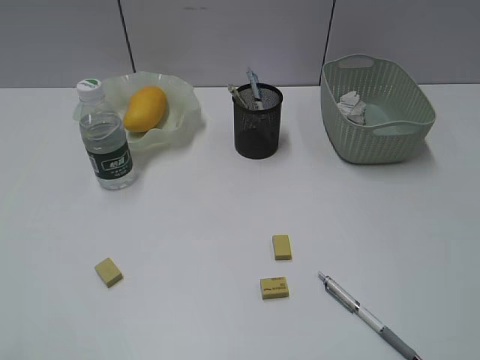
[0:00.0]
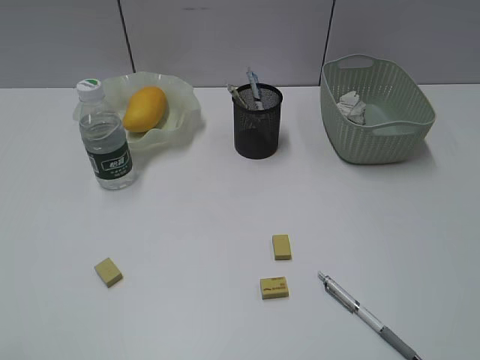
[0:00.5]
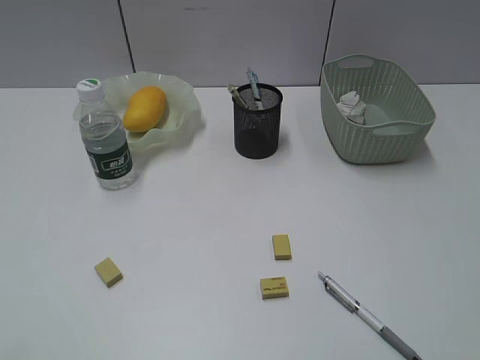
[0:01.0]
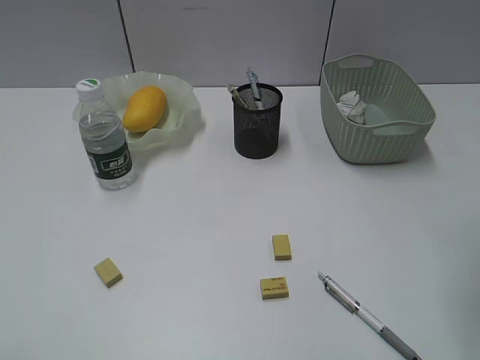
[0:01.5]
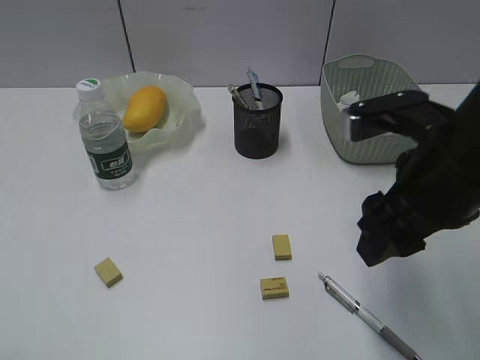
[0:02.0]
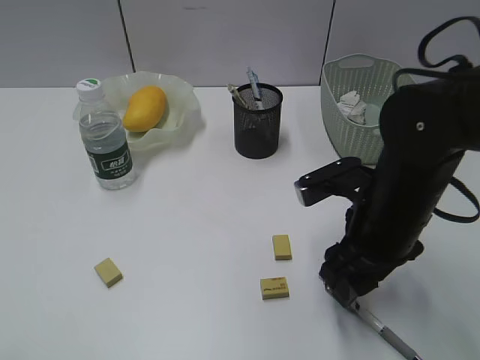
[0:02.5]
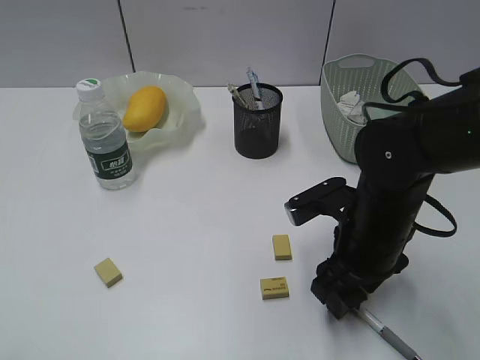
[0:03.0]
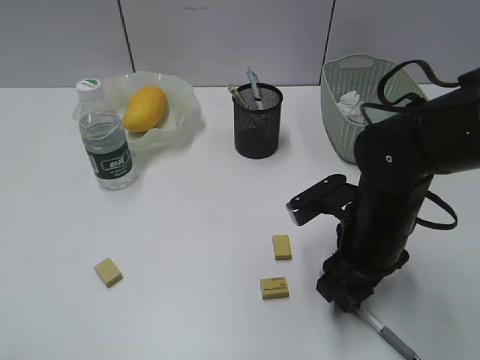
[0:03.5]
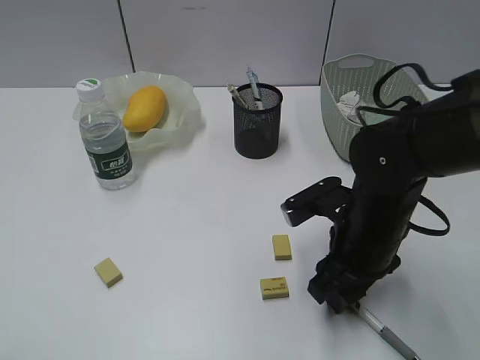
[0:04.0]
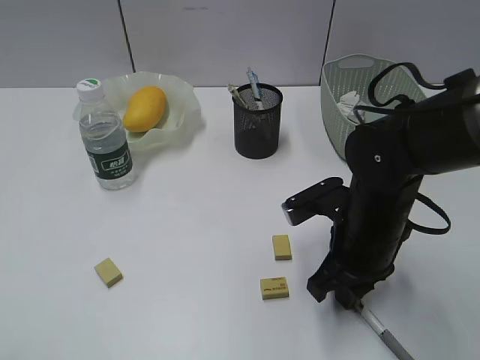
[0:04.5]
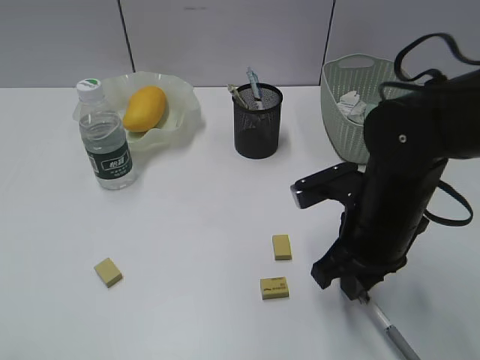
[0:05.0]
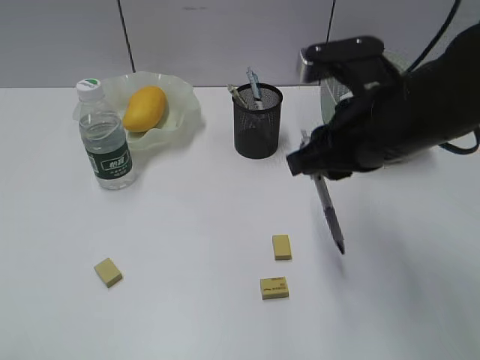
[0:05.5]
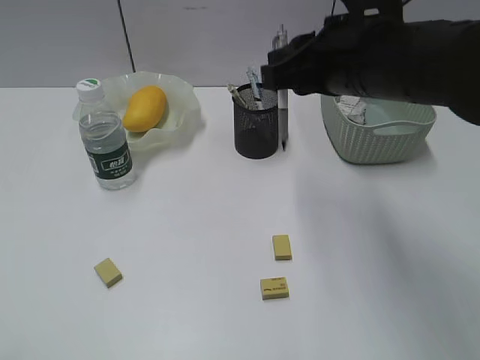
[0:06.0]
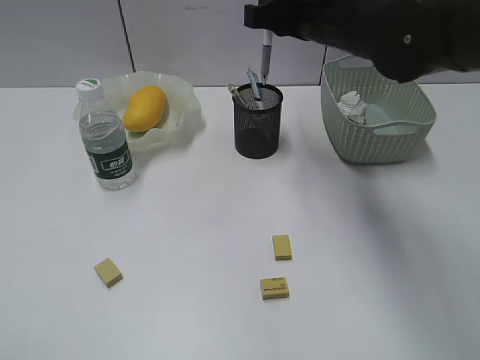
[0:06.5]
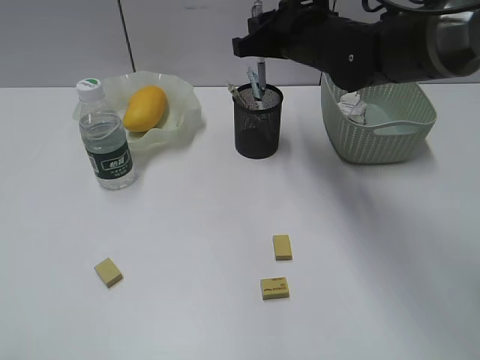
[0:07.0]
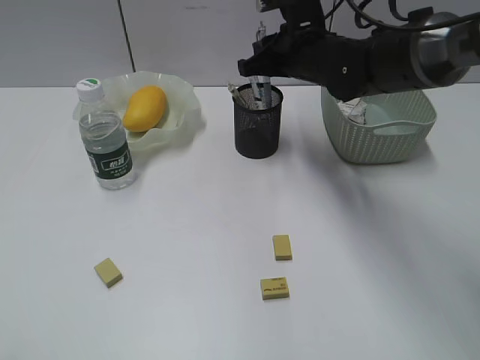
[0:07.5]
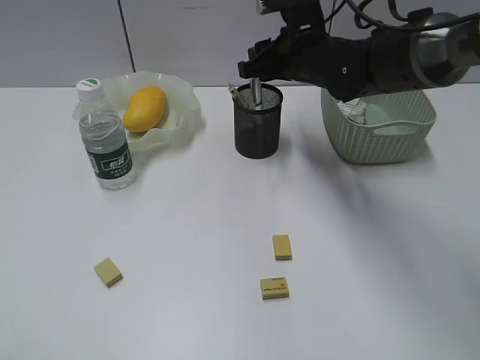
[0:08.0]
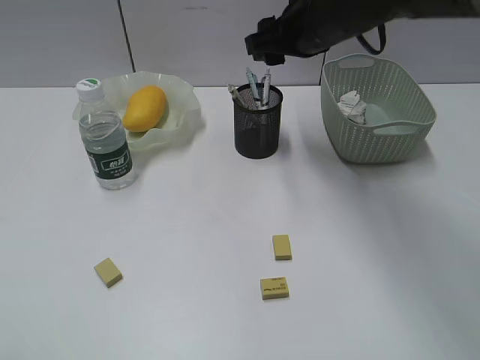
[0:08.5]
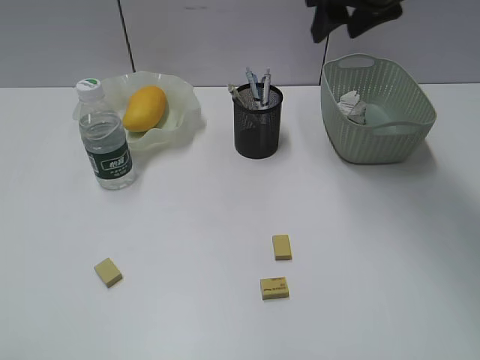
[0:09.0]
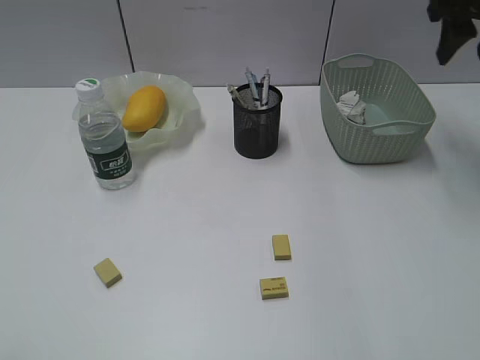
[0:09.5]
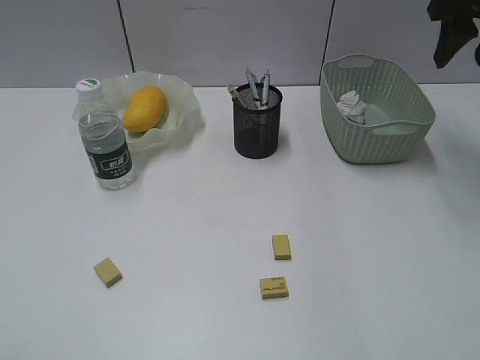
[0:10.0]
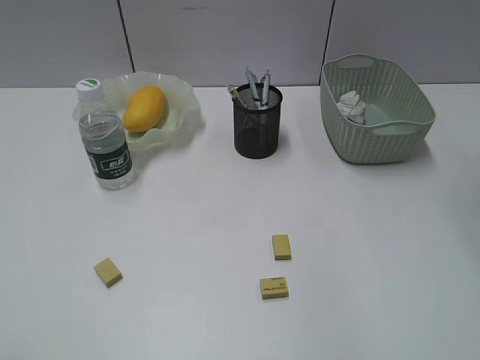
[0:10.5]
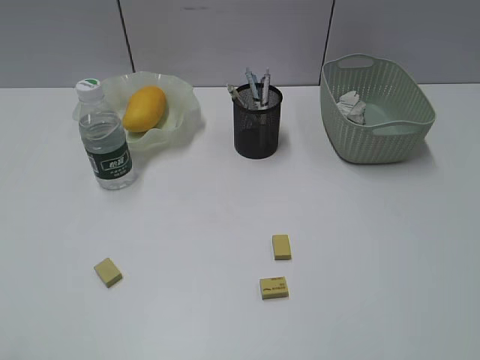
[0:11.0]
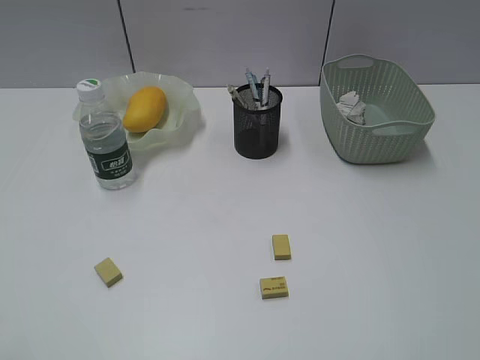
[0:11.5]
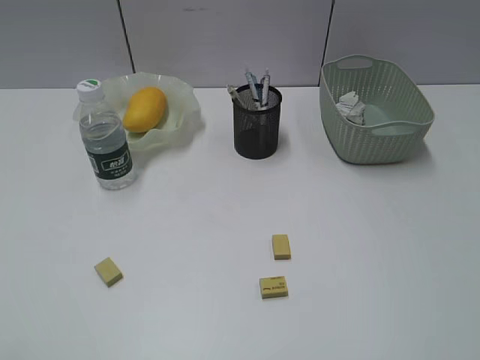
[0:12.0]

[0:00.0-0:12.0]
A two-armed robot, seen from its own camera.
Step, 0:00.0 to 0:04.0: Grasp the gray pen with right gripper.
Step, 0:04.5 to 0:08.0: Place the gray pen in pen holder with right gripper.
0:00.0 to 0:02.0: The right gripper shifts about 25 cm forward and to the left.
0:02.0 to 0:04.0: The right gripper travels downward by some 15 cm.
0:04.0 to 0:06.0: The right gripper goes about 15 cm upward, and closes up.
0:06.0 to 0:08.0: The right gripper shifts some 15 cm forward and downward, and opens its fingers.
0:08.0 to 0:10.0: The right gripper is displaced to the right and upward by about 20 cm.
0:10.0 to 0:12.0: The right gripper goes approximately 40 cm backward.

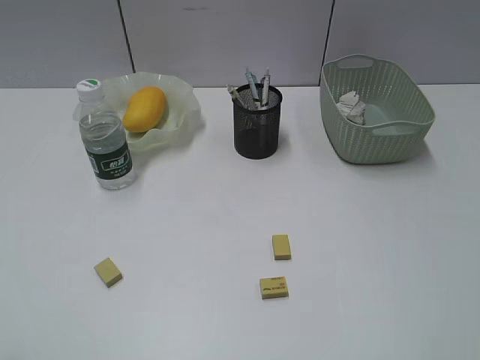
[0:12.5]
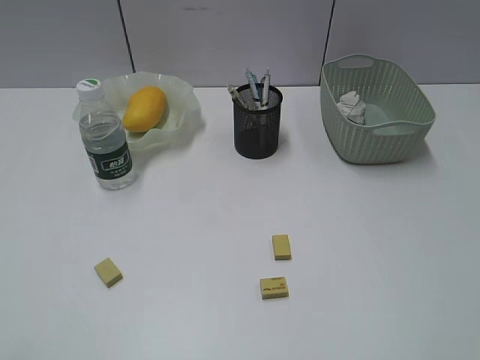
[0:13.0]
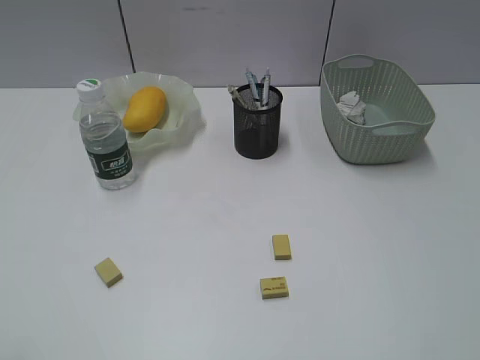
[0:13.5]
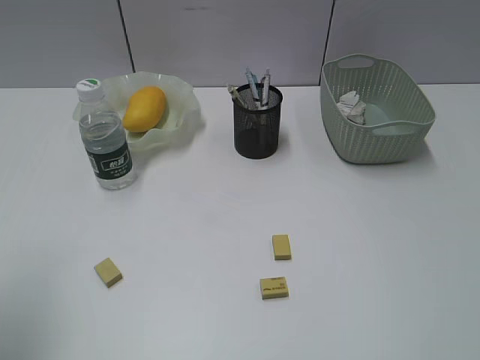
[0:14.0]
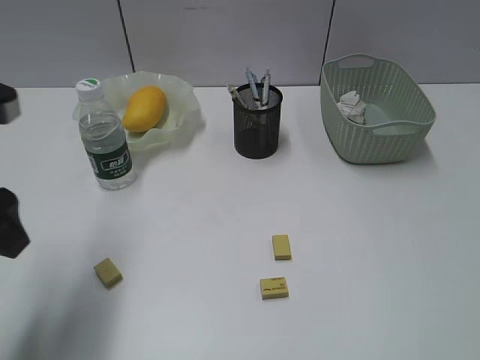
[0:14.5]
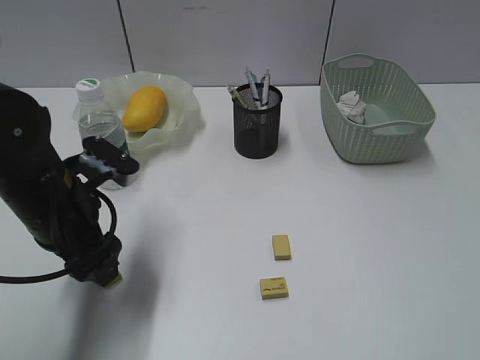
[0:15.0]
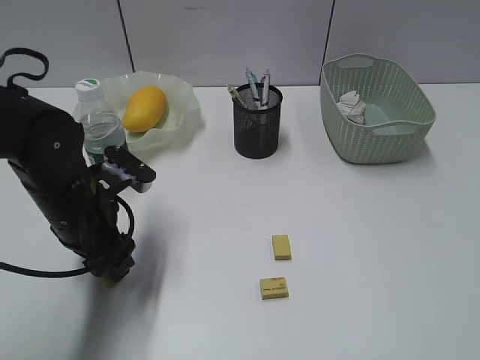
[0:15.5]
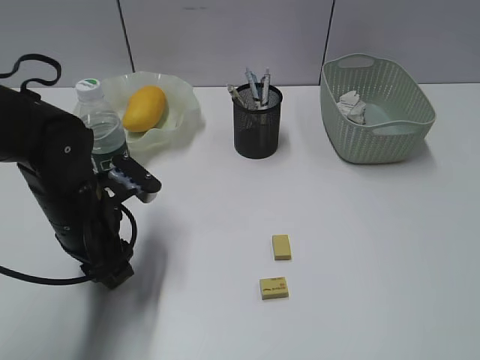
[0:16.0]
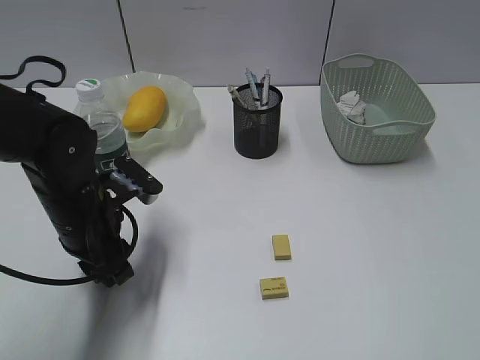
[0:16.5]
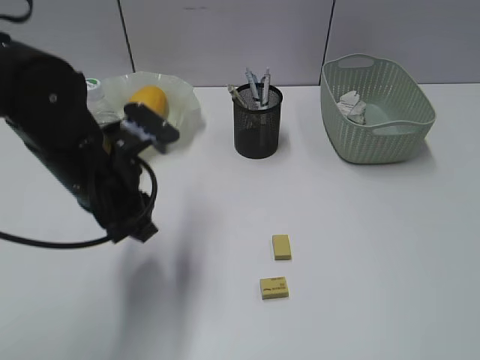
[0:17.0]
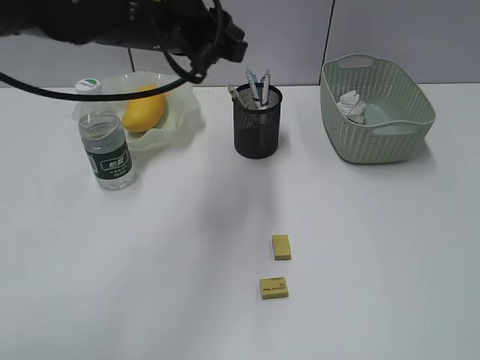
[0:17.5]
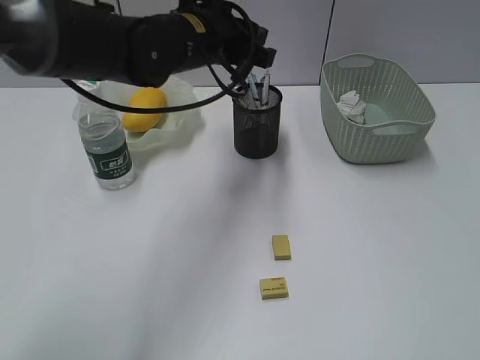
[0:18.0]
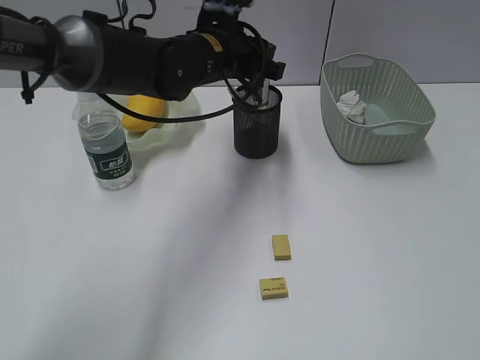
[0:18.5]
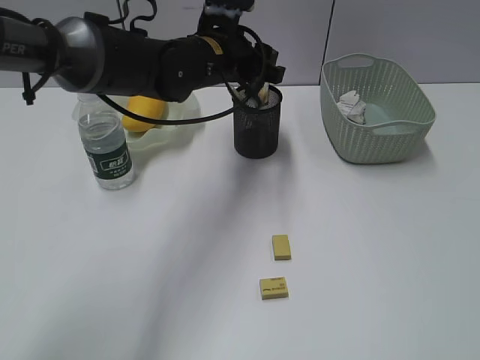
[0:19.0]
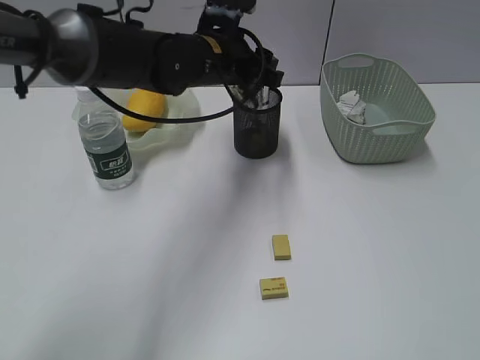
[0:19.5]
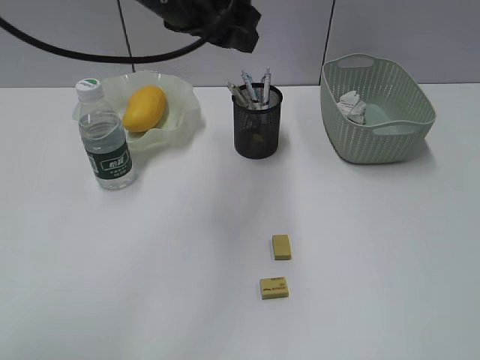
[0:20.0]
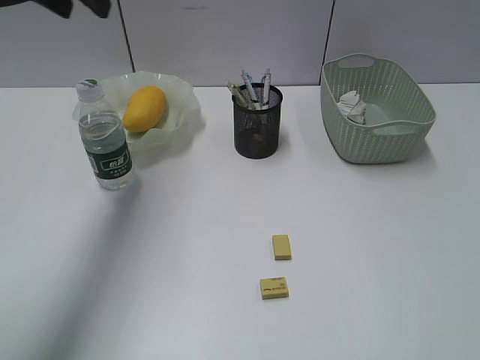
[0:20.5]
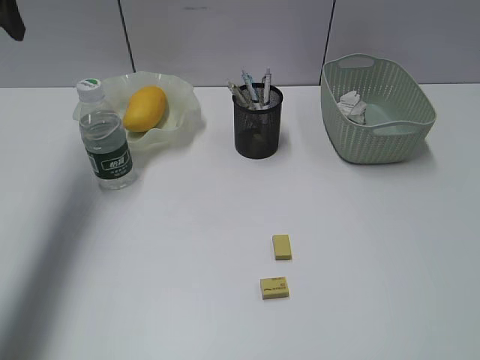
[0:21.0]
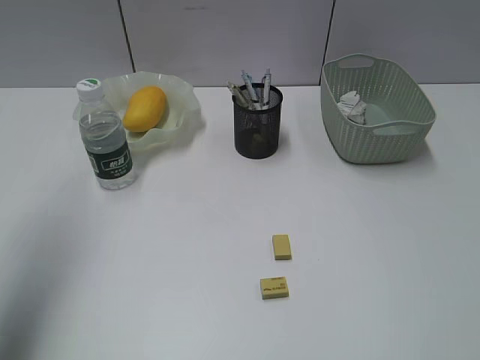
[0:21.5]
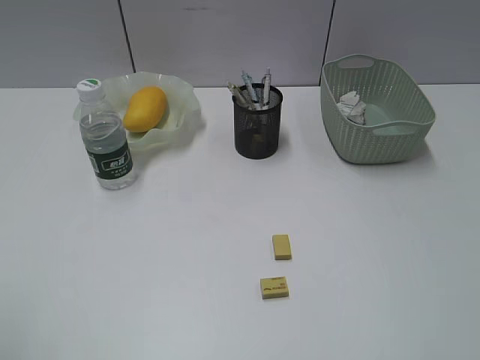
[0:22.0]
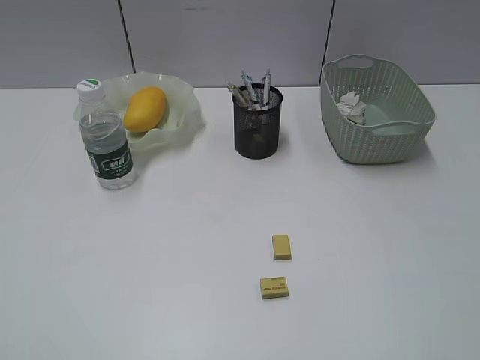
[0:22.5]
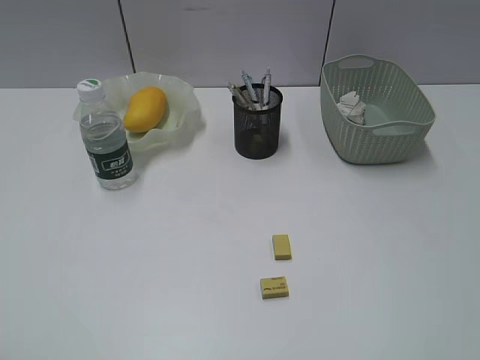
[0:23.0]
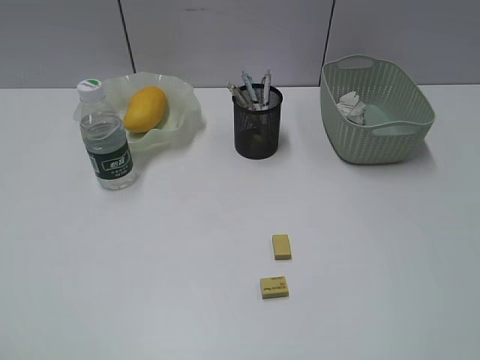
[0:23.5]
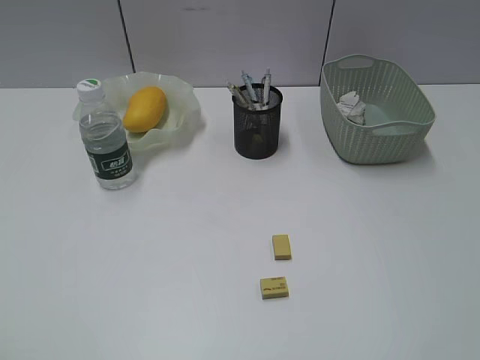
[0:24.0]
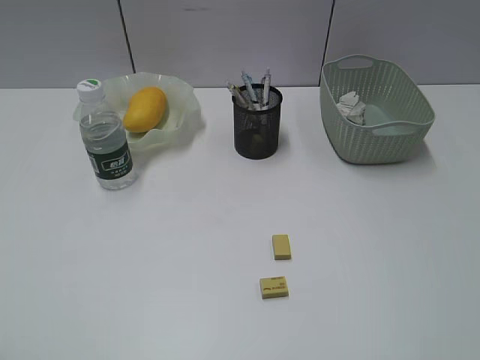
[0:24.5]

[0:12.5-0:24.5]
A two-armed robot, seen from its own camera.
Step, 0:12.5 to 0:16.5: Grasp the eraser with left gripper.
Step, 0:17.0 to 0:19.5: Place the eraser in pen holder with left gripper.
0:12.5 to 0:14.5: The left gripper is displaced forward by roughly 20 cm.
0:14.5 to 0:16.5: The left gripper moves downward, to the right and forward, about 15 cm, and closes its fingers.
0:16.5 to 0:18.5: The left gripper goes roughly 20 cm forward, to the right and upward.
0:18.5 to 0:20.5: The left gripper heads to the left and upward, covering approximately 20 cm.
0:20.5 to 0:22.5: The left gripper is displaced backward by some 40 cm.

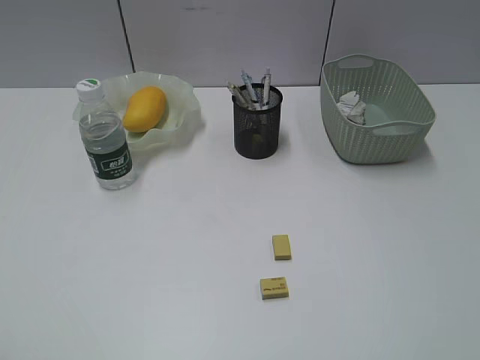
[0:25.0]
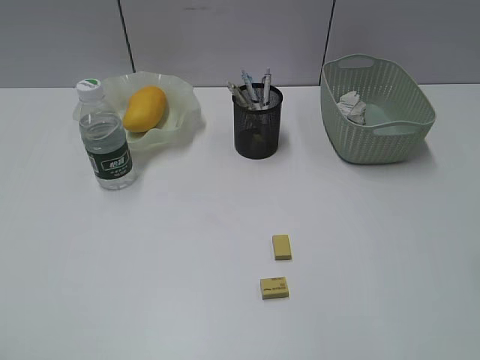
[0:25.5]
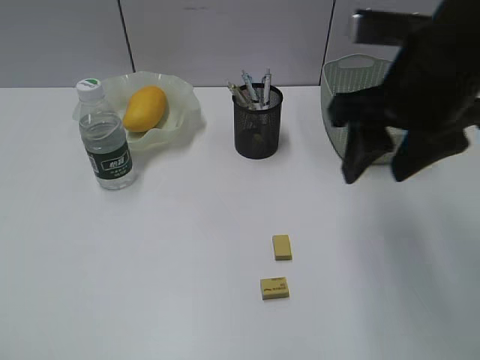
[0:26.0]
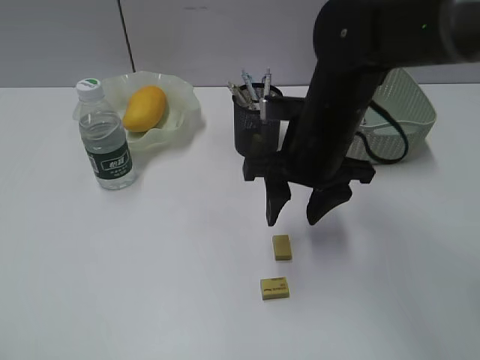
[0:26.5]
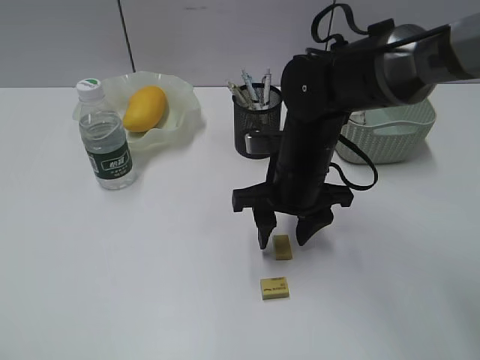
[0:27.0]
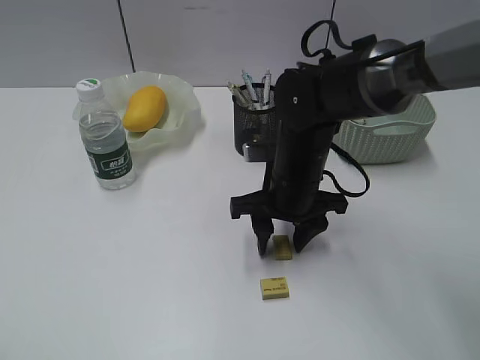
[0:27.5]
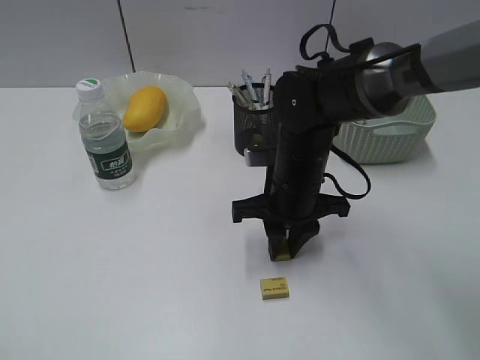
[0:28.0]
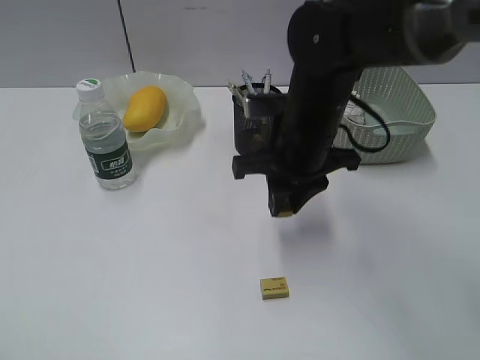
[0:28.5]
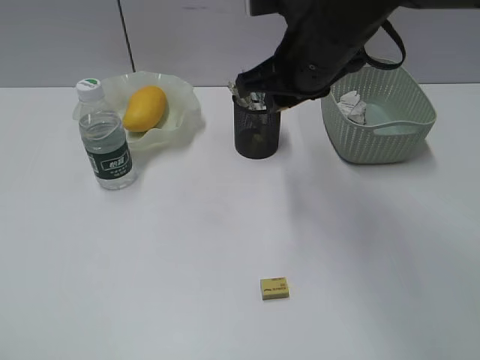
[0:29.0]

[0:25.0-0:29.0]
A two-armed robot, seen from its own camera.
Step, 0:25.0 to 0:28.0: Grasp the eraser with right gripper.
0:25.0 to 0:27.0: The right gripper goes roughly 40 cm forward, to the left and downward.
0:27.0 to 0:29.0: The right gripper shifts approximately 10 cm upward, and closes its fingers.
